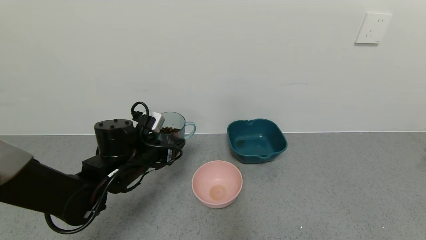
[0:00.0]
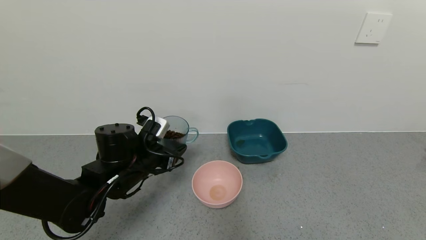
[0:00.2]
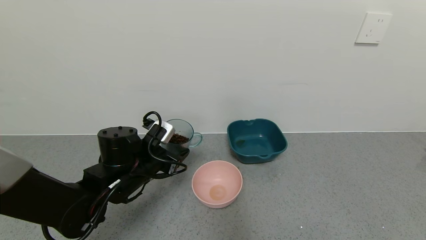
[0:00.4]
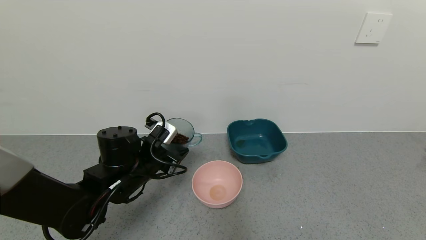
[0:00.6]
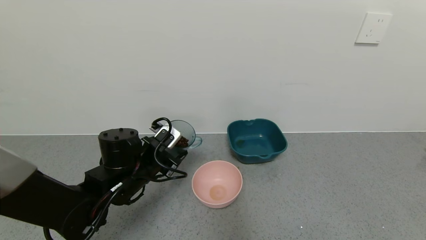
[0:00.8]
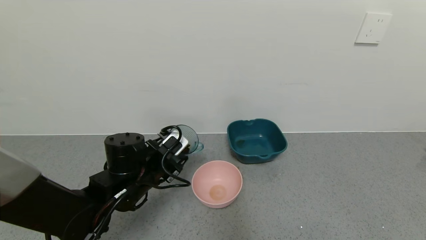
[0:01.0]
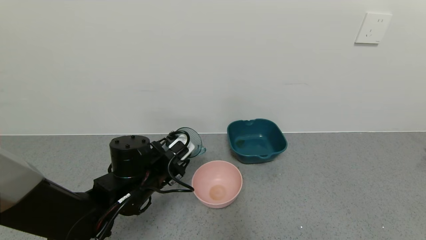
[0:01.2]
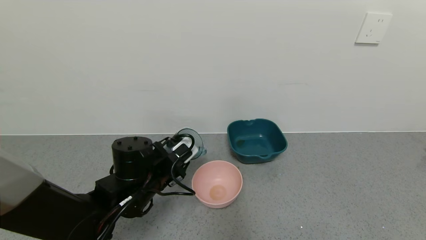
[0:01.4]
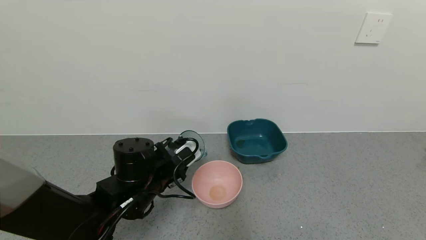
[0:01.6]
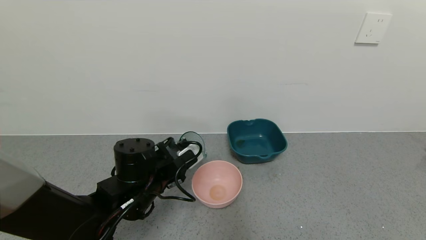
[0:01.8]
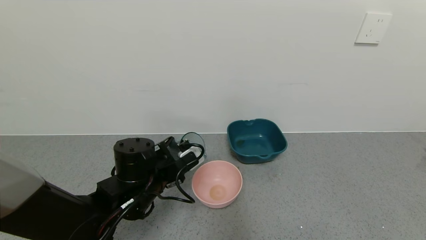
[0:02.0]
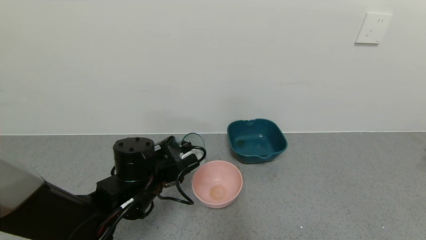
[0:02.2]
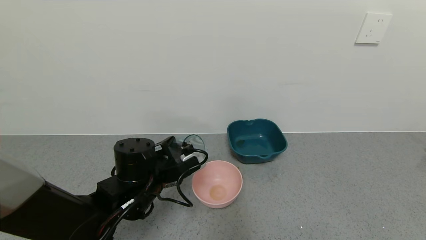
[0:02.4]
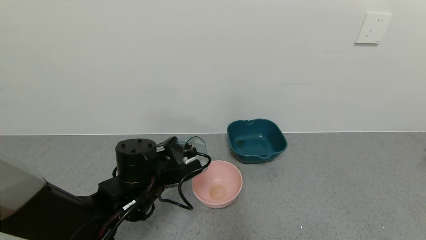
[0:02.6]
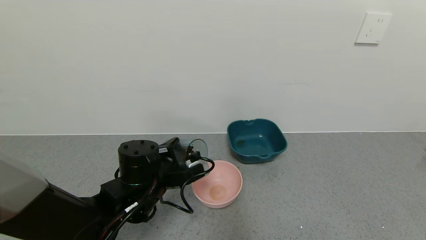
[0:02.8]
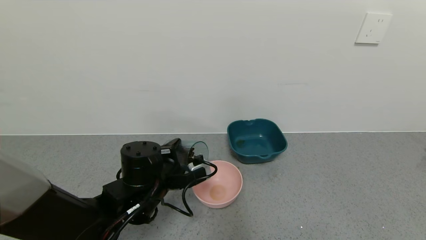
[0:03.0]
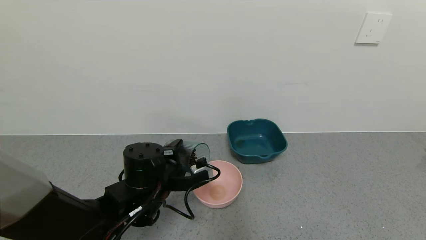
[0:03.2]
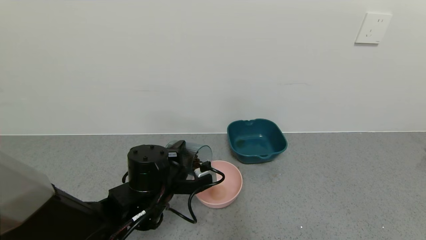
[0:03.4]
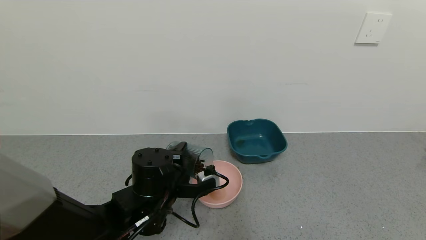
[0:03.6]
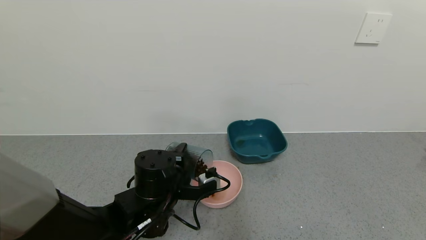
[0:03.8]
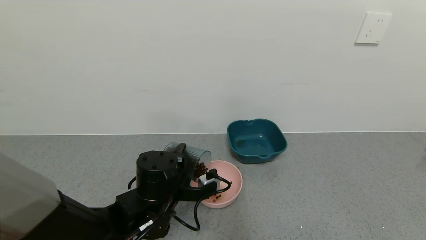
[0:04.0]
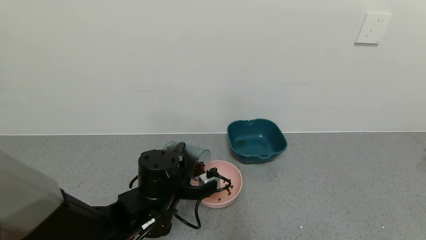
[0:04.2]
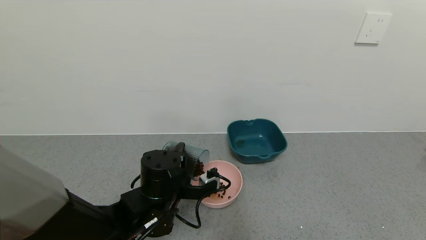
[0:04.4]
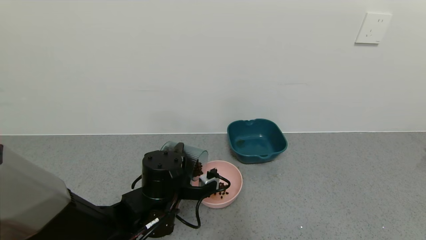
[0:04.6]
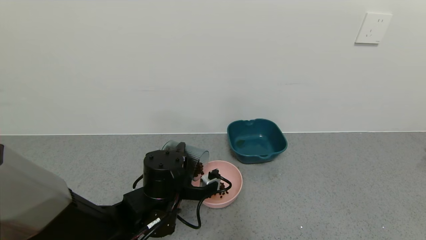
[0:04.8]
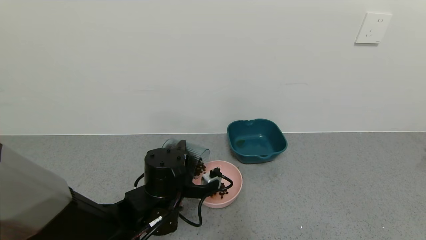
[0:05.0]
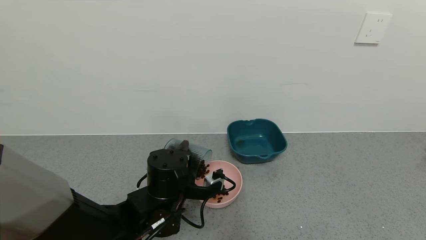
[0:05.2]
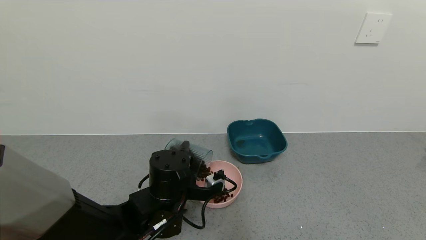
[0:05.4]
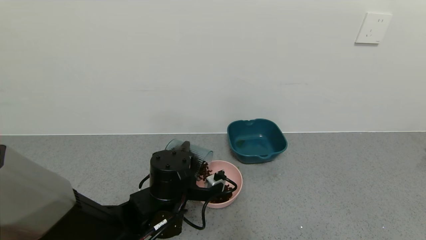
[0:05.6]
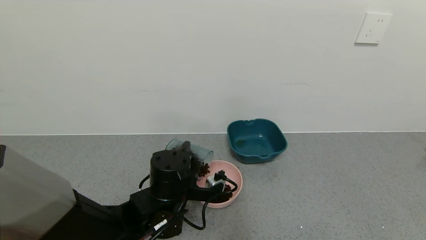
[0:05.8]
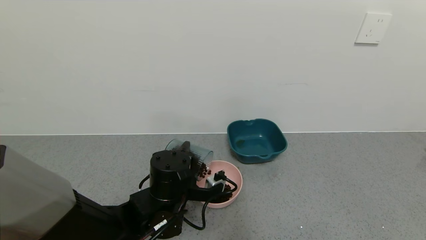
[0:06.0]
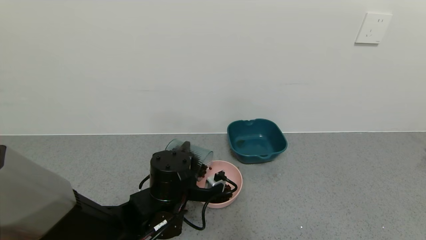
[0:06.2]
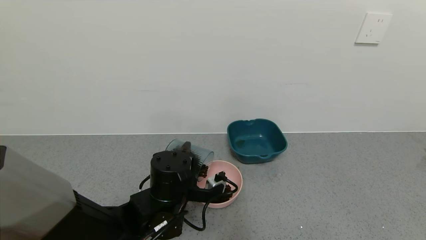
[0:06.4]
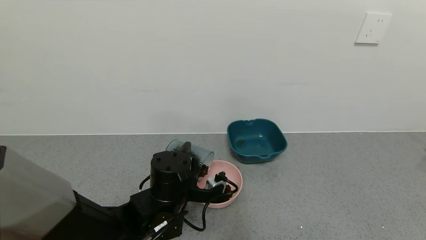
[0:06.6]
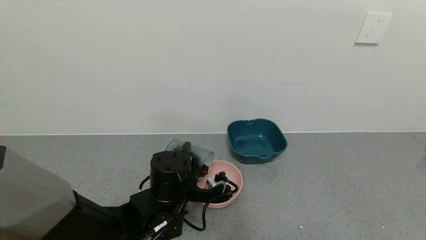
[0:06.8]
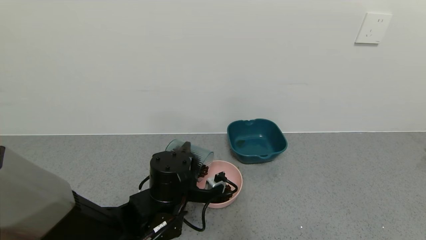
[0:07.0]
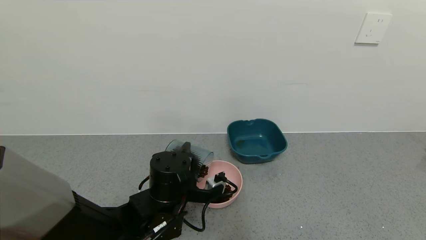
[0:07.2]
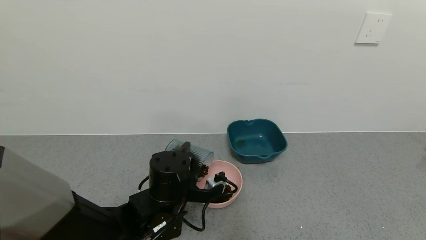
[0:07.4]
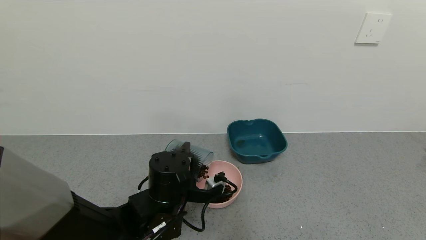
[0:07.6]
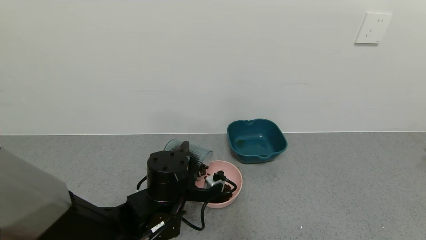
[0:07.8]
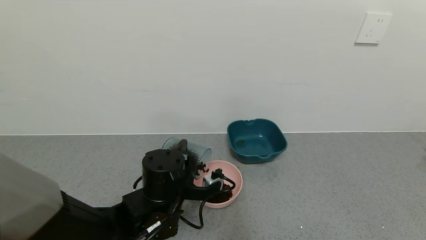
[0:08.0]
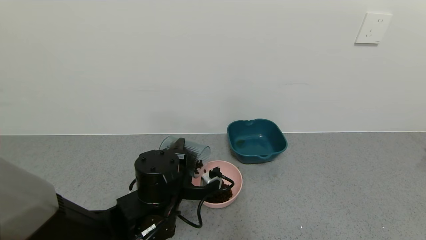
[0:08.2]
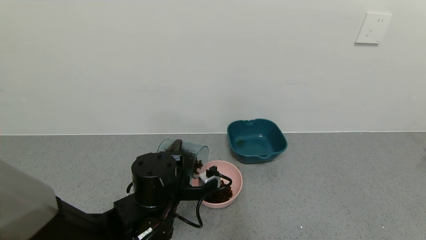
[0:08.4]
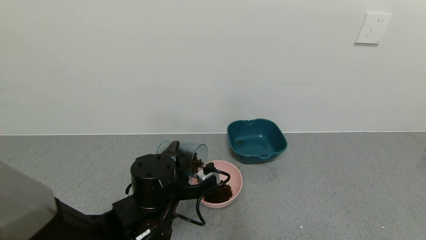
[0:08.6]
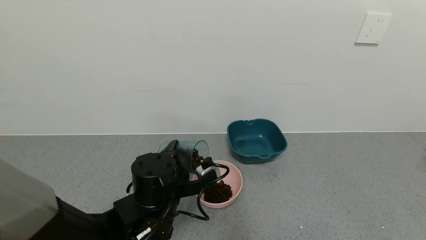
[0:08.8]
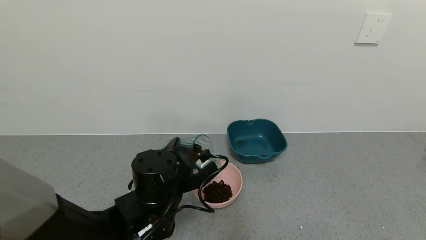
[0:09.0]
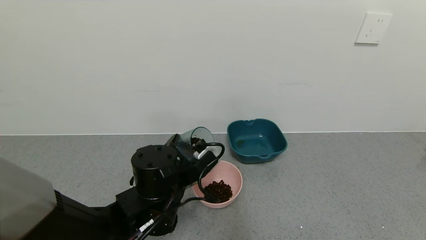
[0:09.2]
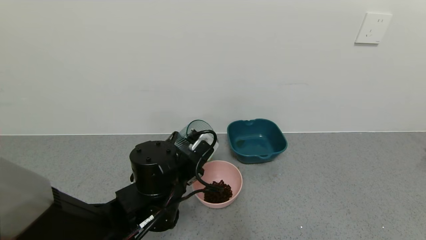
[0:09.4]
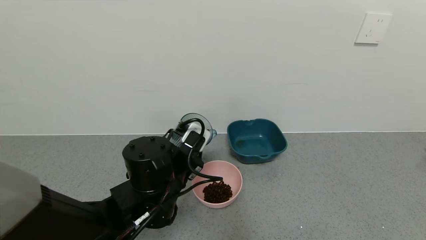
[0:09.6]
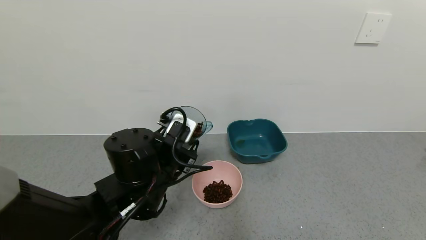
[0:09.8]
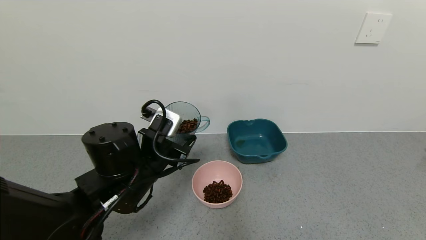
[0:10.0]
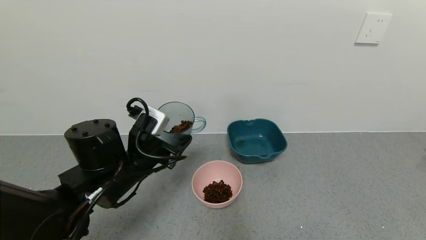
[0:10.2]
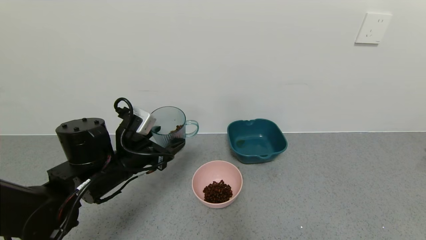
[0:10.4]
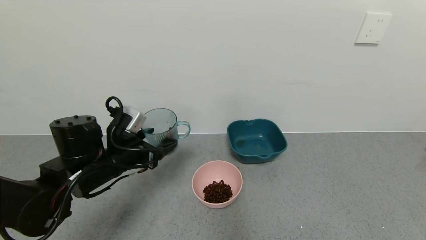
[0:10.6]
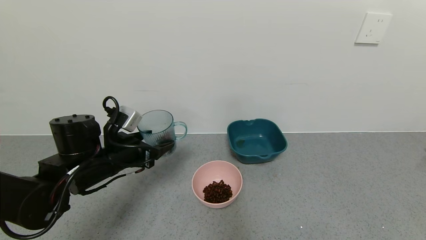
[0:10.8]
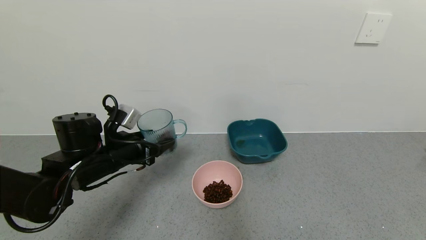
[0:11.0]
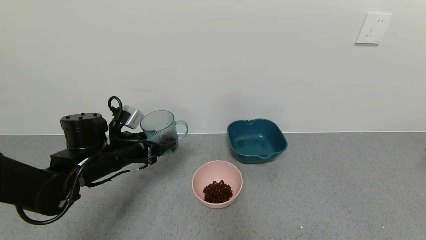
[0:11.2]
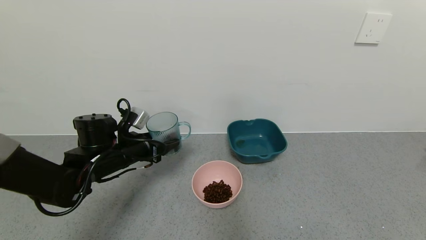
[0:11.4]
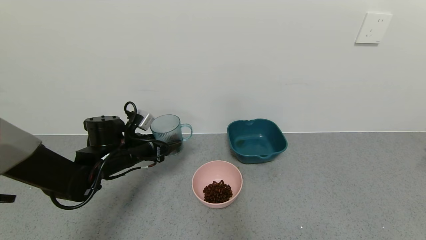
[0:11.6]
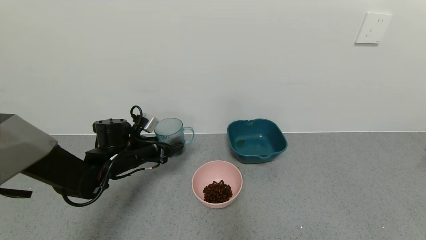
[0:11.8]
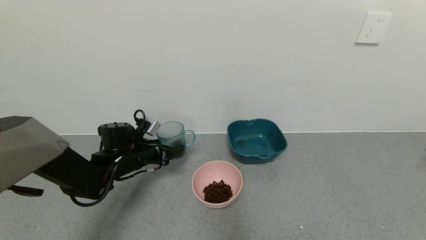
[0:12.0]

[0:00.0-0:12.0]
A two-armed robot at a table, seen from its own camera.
Task of the whole recording: use a gripper to pick up the cup and pour the solid into a bowl or tray.
Step, 0:00.0 to 0:09.0: Pour the coffee beans into the pink bowl with the left gripper.
0:00.0 to 0:01.6: The left gripper shifts by about 5 cm.
0:03.0 to 0:04.4: There are only small adjustments of the grippers.
0:04.4 to 0:06.0: The grippers move only a little.
0:06.0 to 0:07.6: Both grippers stay about where they are.
0:09.0 to 0:10.4: The left gripper shifts approximately 10 cm to the left.
0:10.4 to 0:12.0: The left gripper shifts some 10 cm forward and downward.

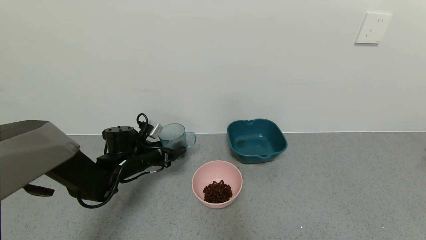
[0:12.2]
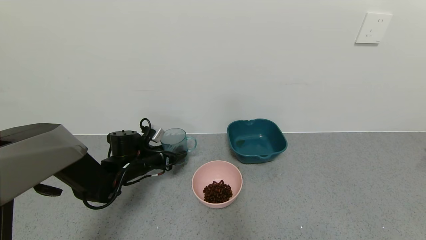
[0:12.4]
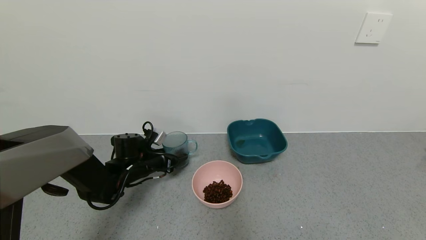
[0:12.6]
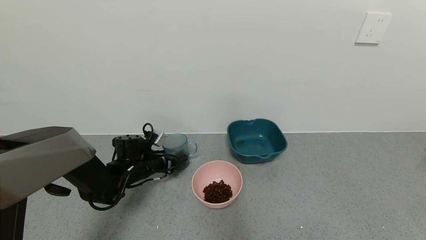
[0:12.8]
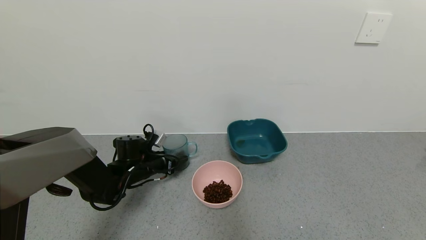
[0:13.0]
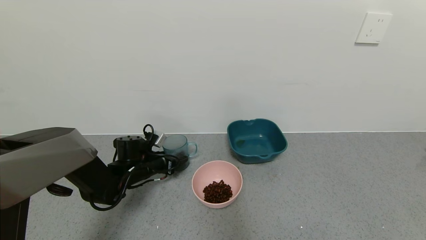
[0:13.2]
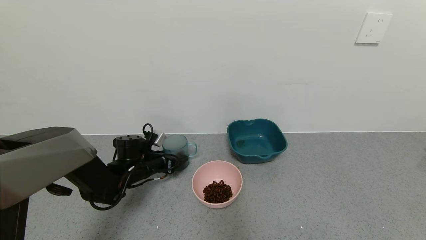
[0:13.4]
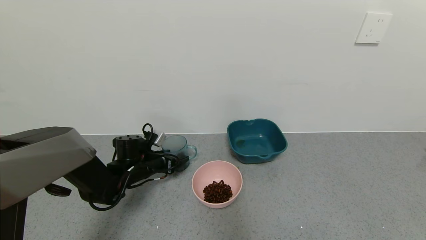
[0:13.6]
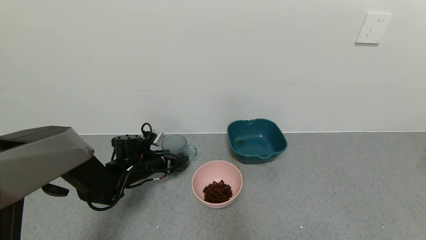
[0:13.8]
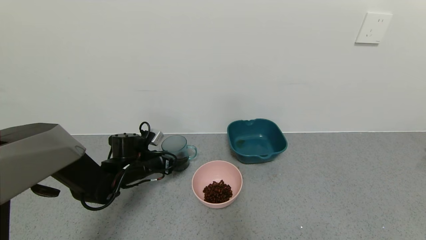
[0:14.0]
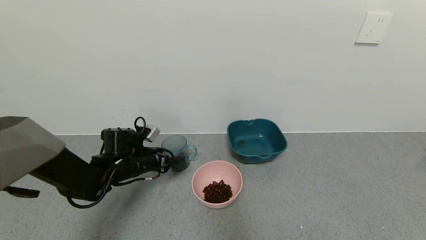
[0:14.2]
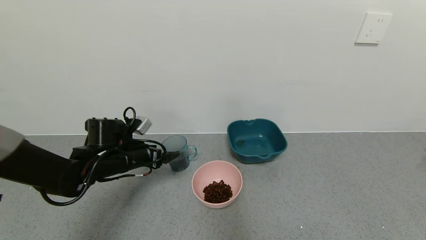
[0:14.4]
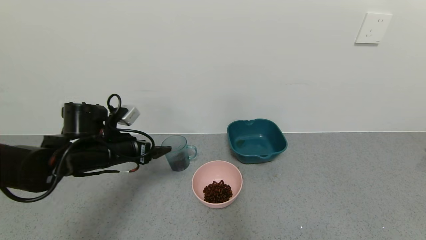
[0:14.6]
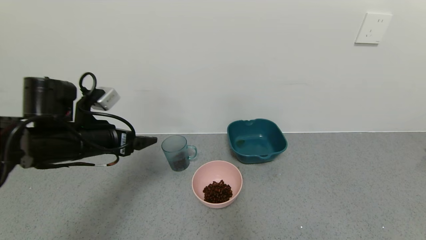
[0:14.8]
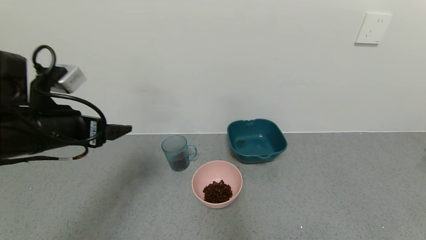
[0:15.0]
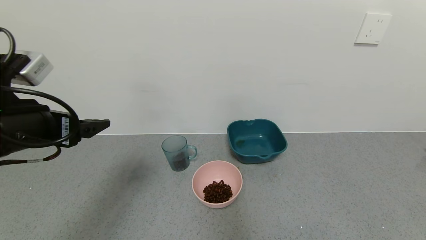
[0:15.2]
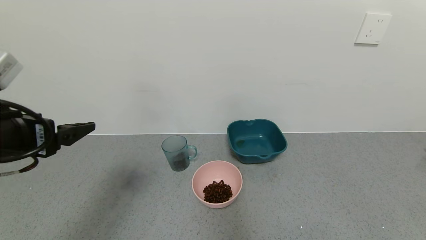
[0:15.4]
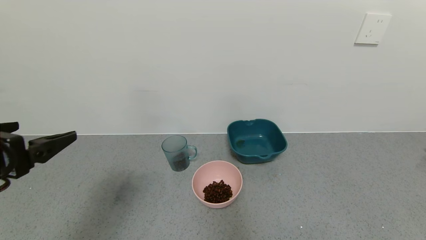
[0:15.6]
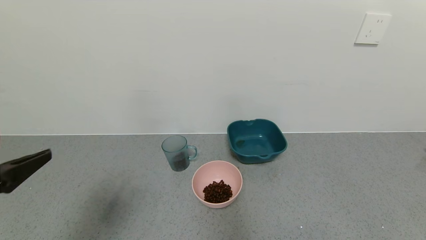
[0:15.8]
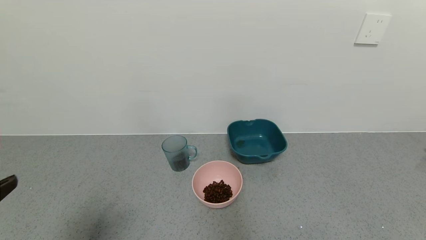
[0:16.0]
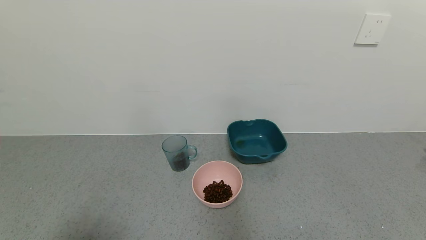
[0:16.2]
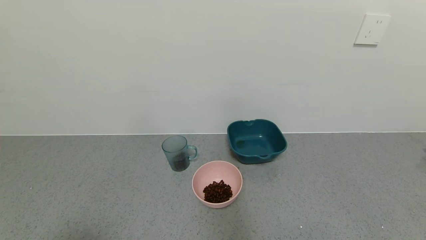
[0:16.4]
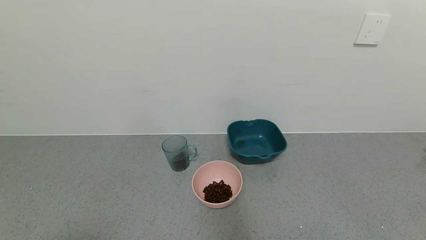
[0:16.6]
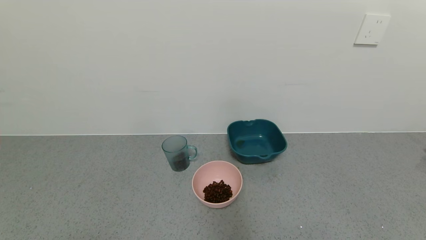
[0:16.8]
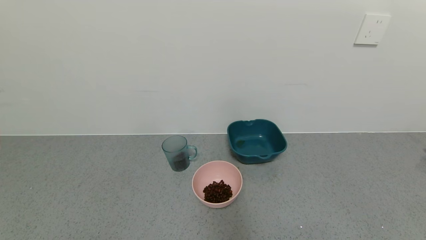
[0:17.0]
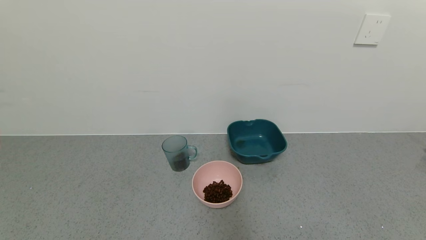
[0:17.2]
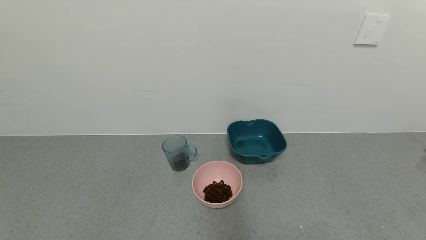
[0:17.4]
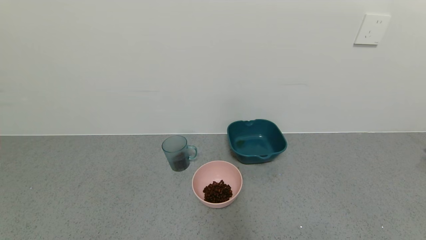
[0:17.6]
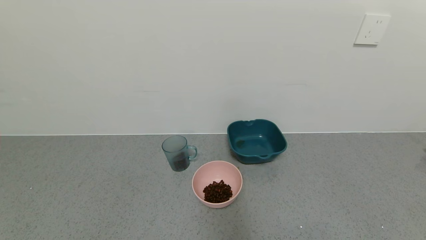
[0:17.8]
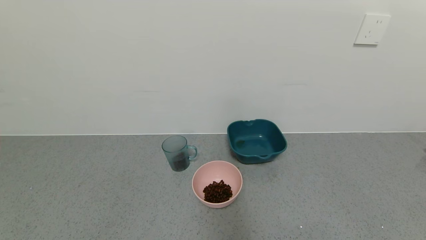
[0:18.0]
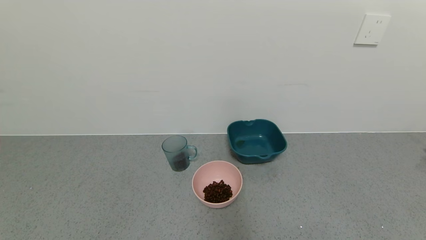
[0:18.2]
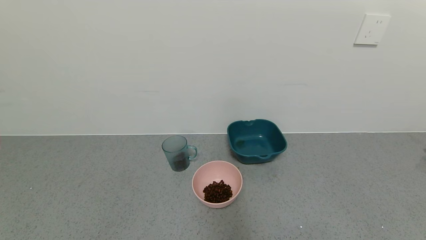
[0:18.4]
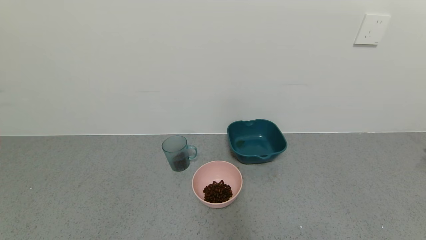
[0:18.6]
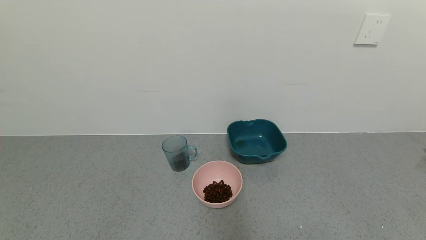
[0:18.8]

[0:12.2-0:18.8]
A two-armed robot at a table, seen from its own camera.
Task of the whole recording: use a gripper to pick up the cup and pour the solid into a bowl or tray.
Step, 0:12.2 to 0:14.4: Place the glass cup with the left gripper.
0:12.2 to 0:13.8: The left gripper opens up.
0:13.8 to 0:15.4: The left gripper is displaced upward and backward by about 30 cm.
0:15.4 to 0:17.2: The left gripper moves backward and downward, roughly 25 cm.
